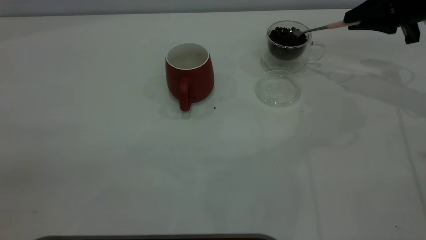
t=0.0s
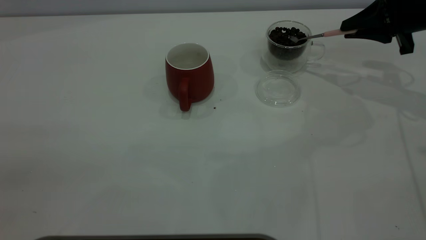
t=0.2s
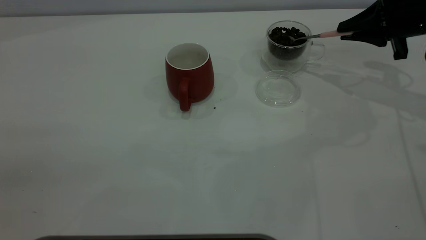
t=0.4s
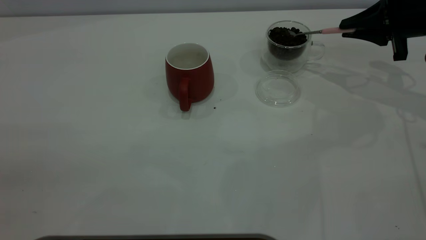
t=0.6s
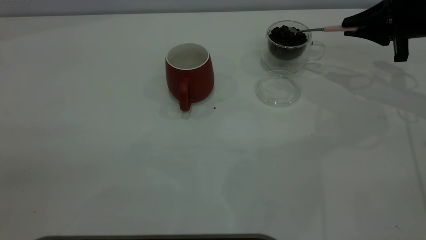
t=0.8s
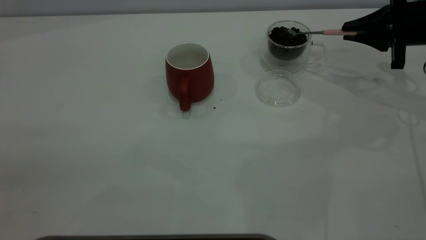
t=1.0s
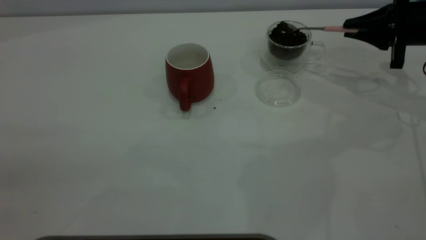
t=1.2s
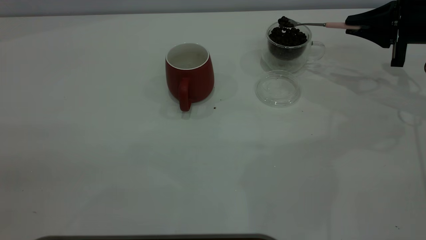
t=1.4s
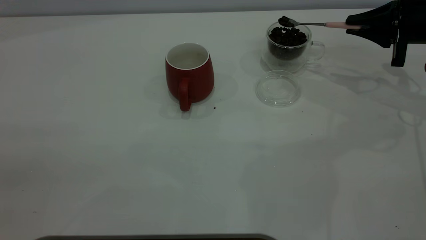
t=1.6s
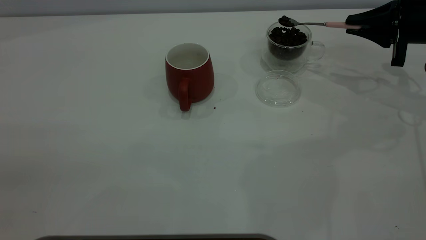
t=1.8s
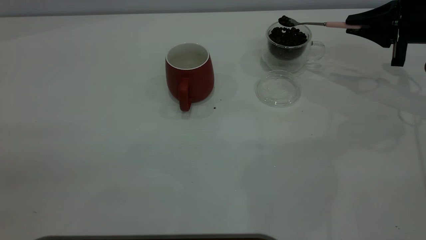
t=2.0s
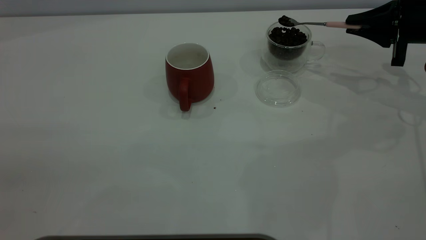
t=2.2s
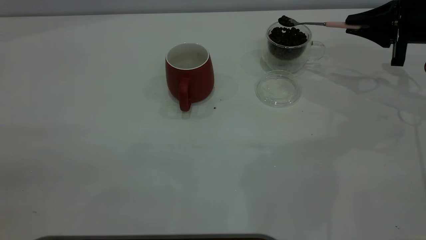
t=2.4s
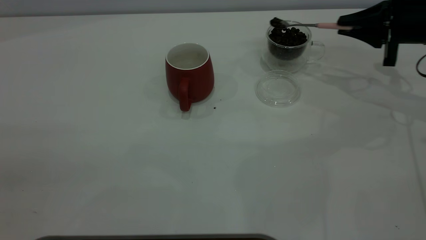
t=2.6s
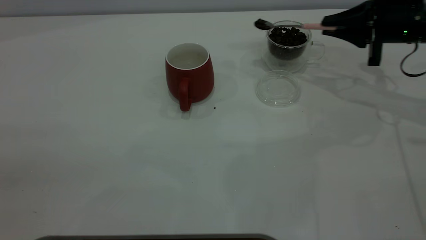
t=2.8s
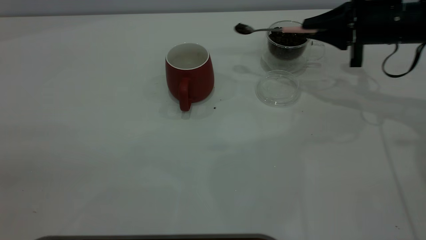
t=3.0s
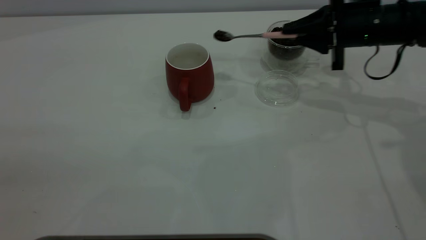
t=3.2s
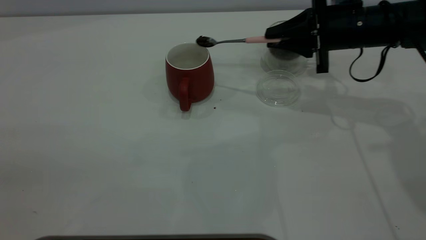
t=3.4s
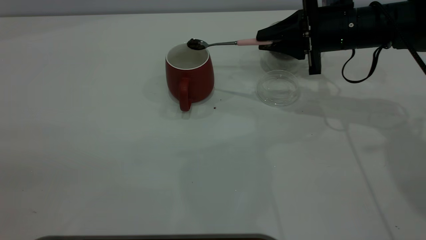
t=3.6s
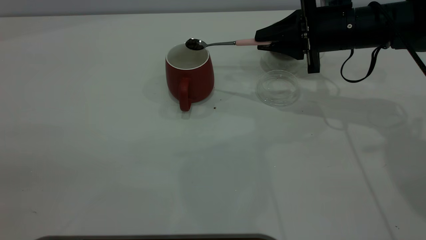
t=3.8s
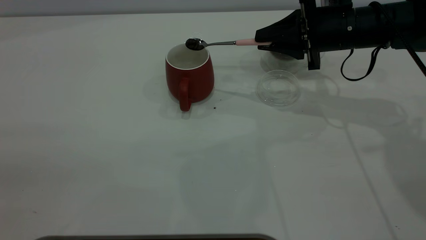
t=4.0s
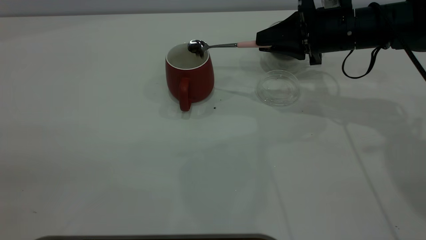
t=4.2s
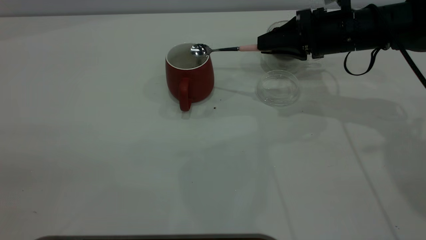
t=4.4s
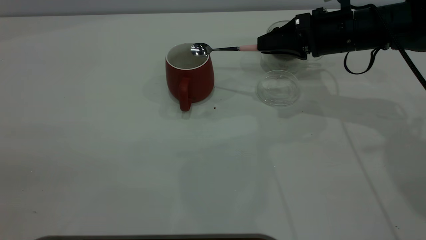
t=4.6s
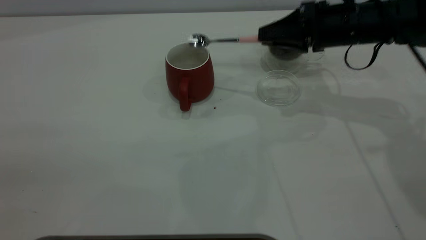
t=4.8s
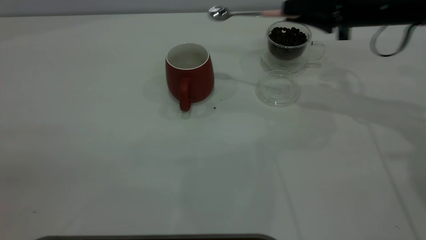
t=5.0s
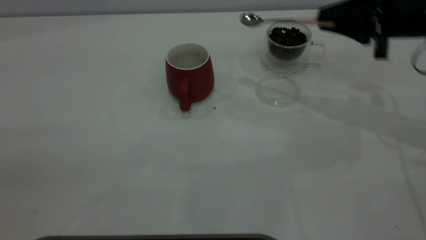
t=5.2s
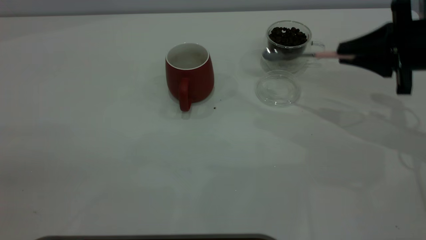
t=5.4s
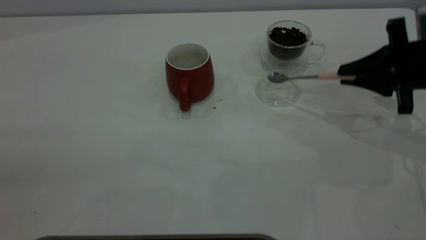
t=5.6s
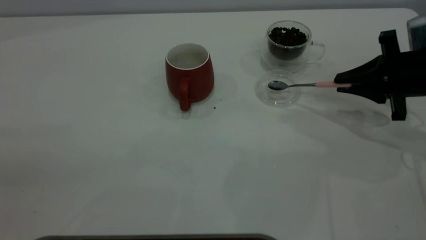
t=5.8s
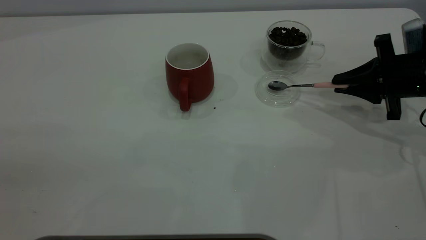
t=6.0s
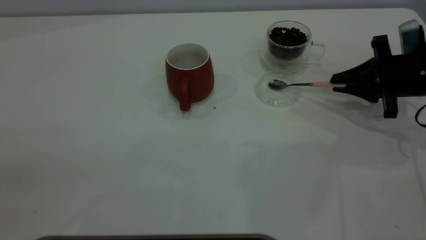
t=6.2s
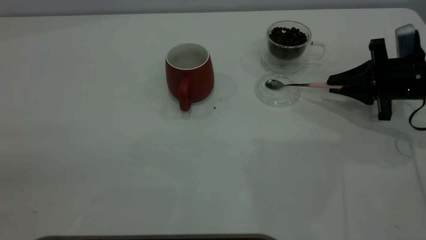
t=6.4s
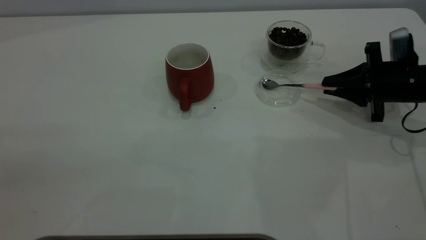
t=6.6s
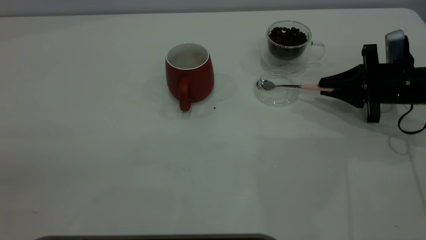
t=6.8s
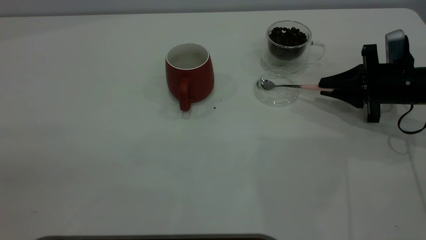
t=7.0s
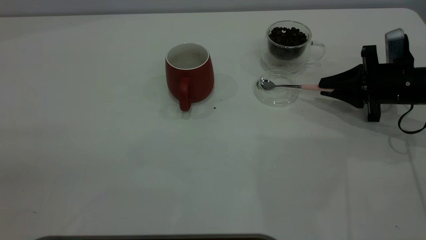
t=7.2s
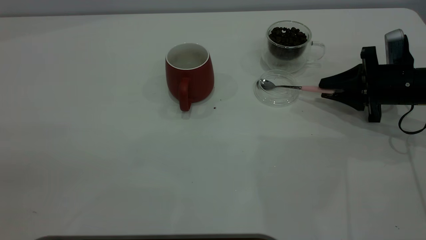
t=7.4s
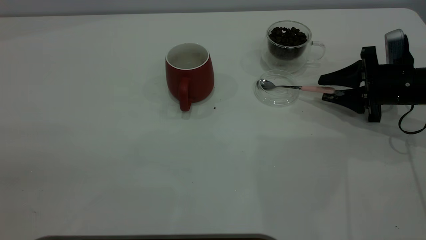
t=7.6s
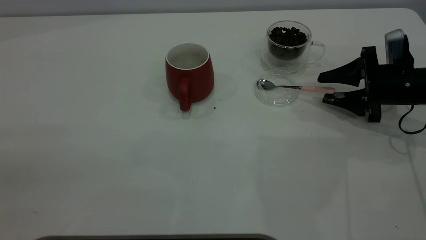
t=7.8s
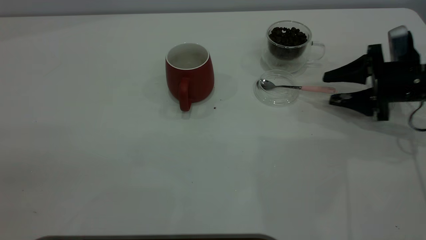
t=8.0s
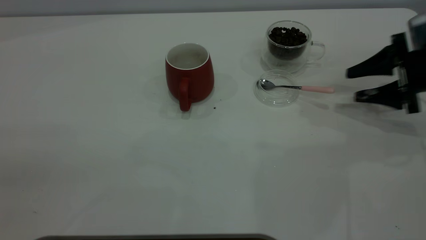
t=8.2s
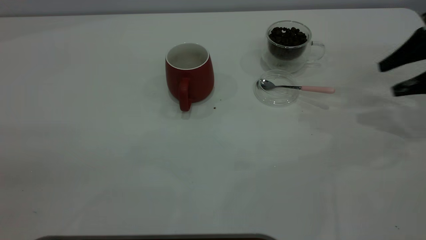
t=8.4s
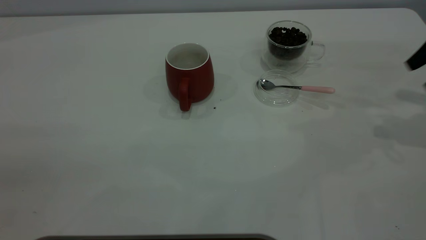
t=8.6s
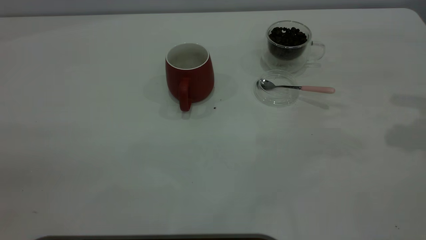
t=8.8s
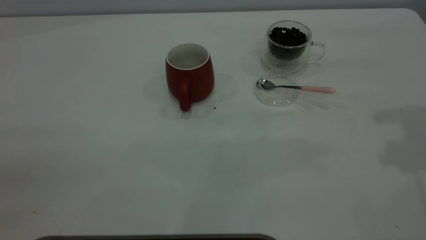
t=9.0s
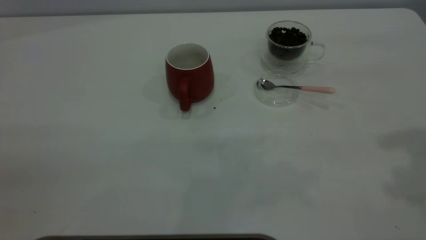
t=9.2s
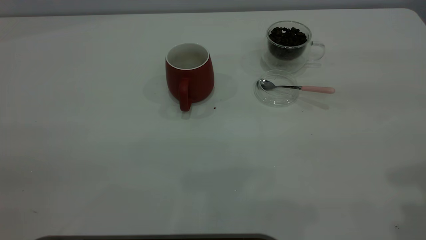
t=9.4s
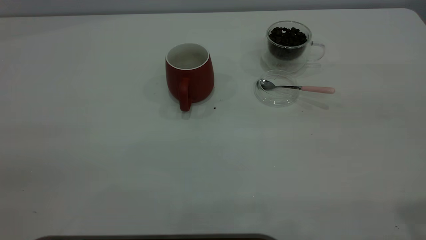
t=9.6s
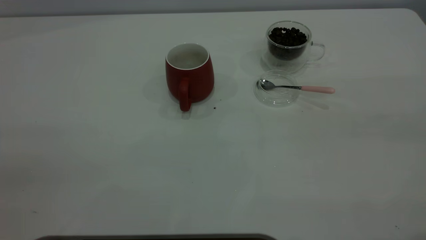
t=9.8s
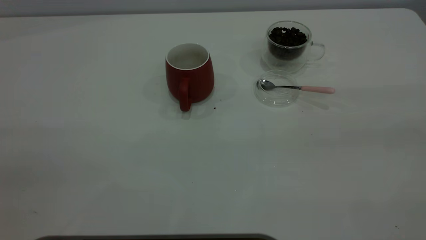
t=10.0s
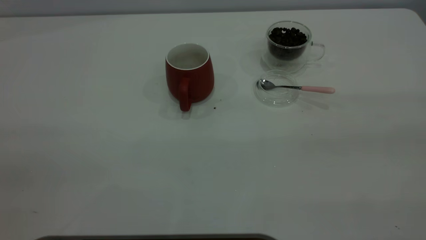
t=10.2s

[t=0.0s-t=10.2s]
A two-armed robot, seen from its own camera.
Task of the whole recording: the left gripper place the red cup in the center of the table, the right gripper take the pink spoon from the cup lid and scoop out the coffee beans from the coffee cup and put them into the red cup, the right gripper put the spoon back into the cup lid.
Step, t=0.0s to t=4.6s: Scoop a spoonful of beans into the cup.
Step, t=5.0s to t=8.0s: Place the spoon back in its original place.
t=1.4s to t=3.0s: The right gripper goes some 10 cm to the left.
t=3.0s to t=4.4s: The right gripper is displaced to the left by some 5 cm.
t=4.4s to t=5.8s: The right gripper heads to the right and backward, covering about 15 cm.
t=5.8s to t=7.2s: The right gripper ends up some 5 cm from where it was.
t=7.2s to t=8.8s: The right gripper heads upward, covering about 25 cm, and opens.

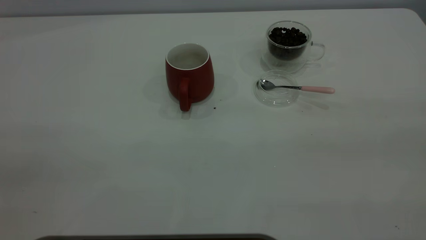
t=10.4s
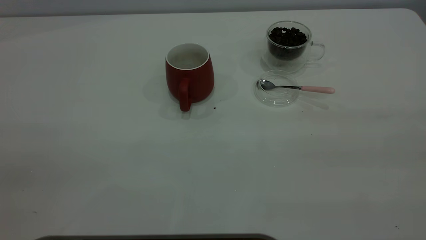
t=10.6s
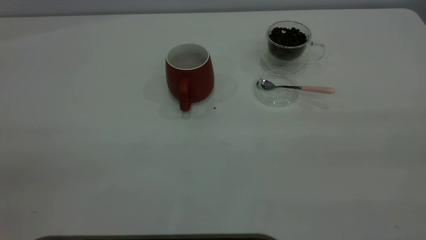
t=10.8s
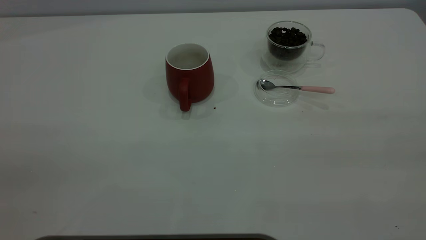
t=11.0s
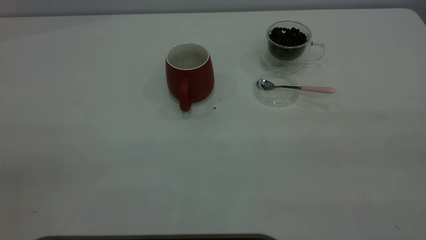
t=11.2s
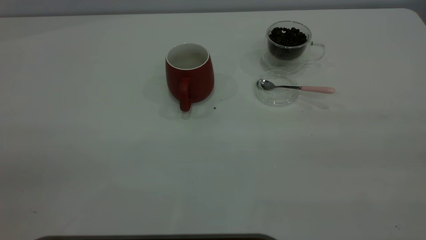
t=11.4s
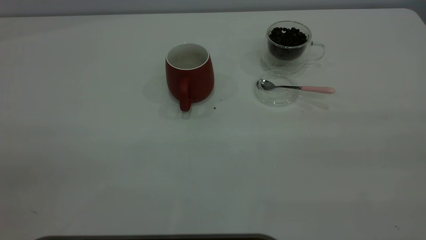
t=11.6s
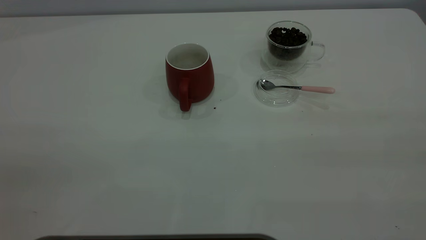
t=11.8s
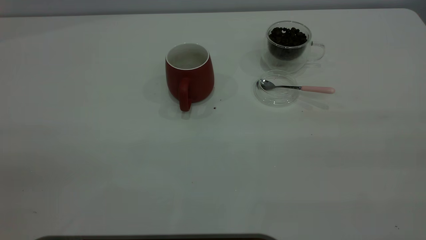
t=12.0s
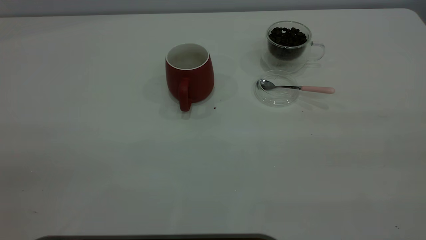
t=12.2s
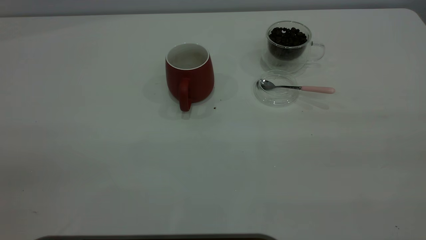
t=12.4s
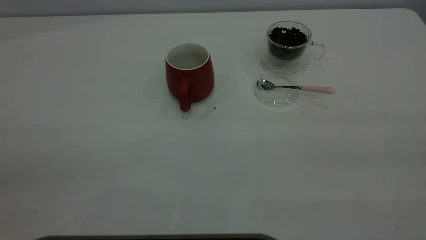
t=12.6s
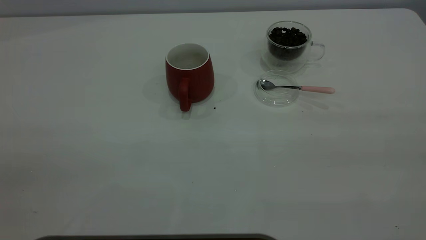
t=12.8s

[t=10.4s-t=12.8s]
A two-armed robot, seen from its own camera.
Task of the whole recording: the left gripper place the red cup in the center of the table, the right gripper take the pink spoon from the cup lid and scoop out the coffee beans from the coffee cup and put them into the red cup, the right gripper put the spoon back into the cup lid.
t=10.4s to t=11.6s: Both grippers stay about where they are.
t=11.6s to t=12.8s: Both grippers stay put.
